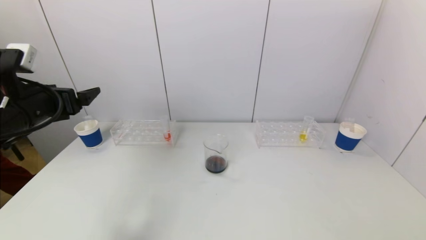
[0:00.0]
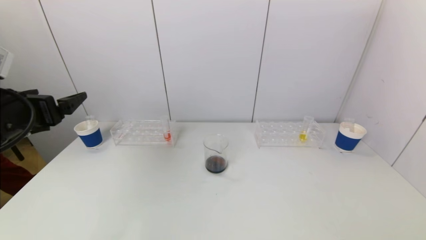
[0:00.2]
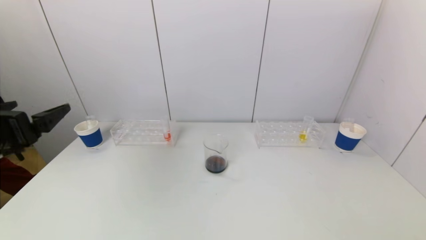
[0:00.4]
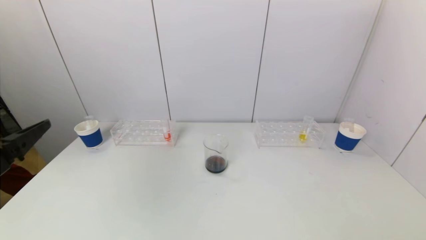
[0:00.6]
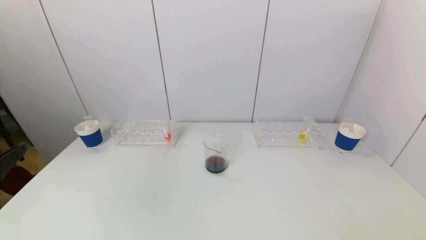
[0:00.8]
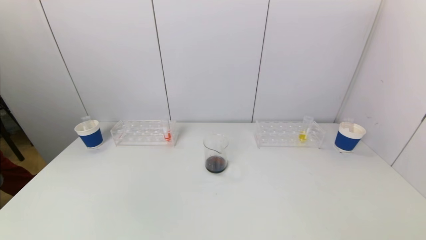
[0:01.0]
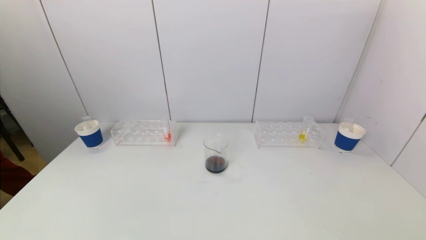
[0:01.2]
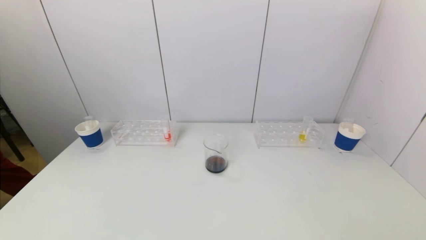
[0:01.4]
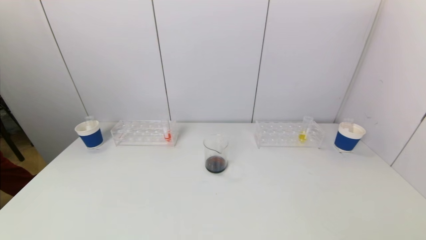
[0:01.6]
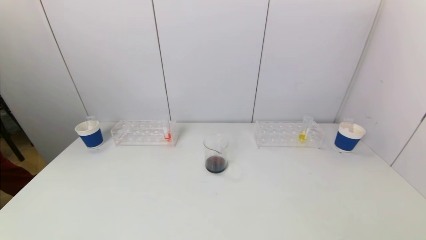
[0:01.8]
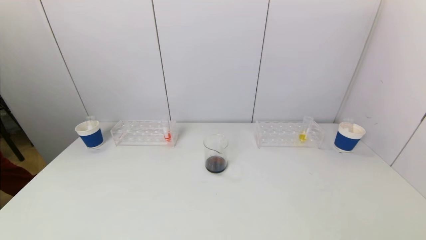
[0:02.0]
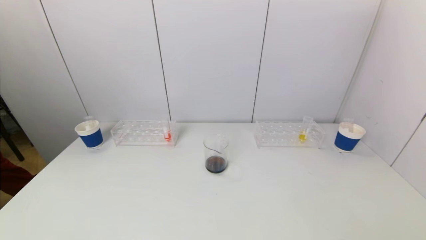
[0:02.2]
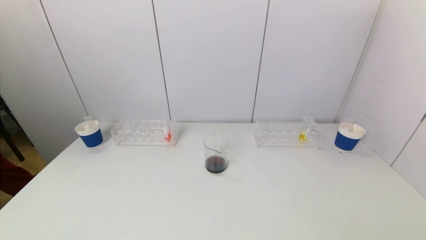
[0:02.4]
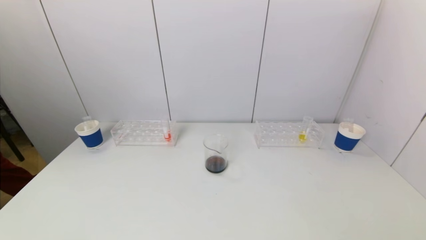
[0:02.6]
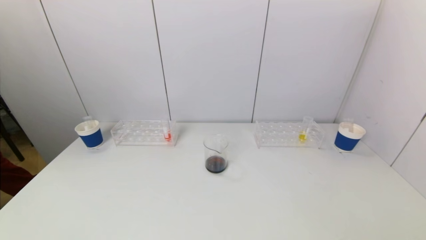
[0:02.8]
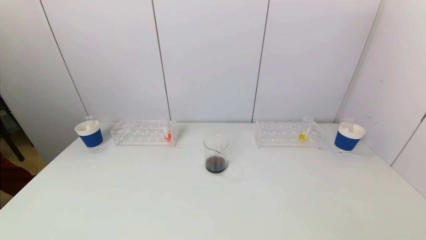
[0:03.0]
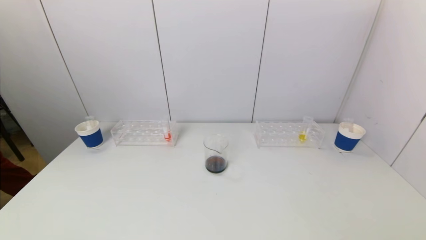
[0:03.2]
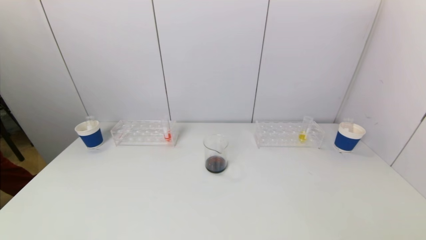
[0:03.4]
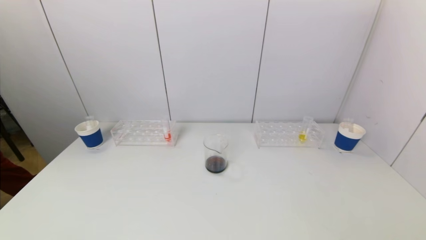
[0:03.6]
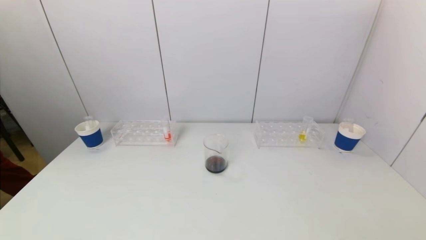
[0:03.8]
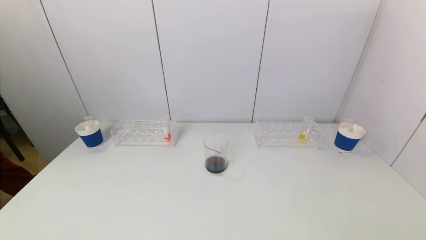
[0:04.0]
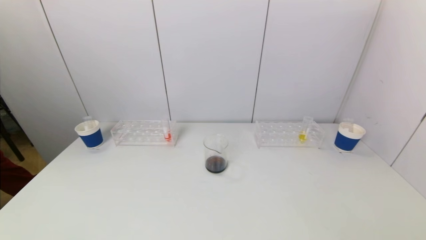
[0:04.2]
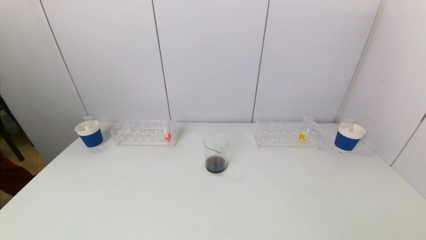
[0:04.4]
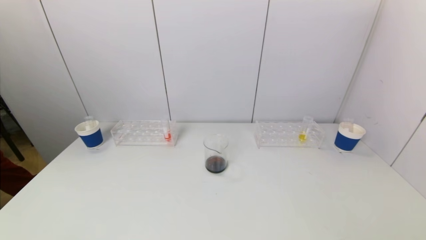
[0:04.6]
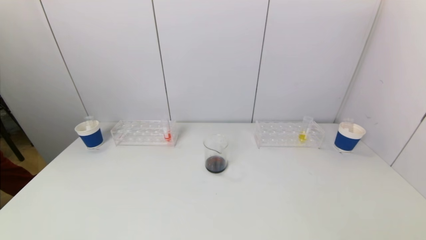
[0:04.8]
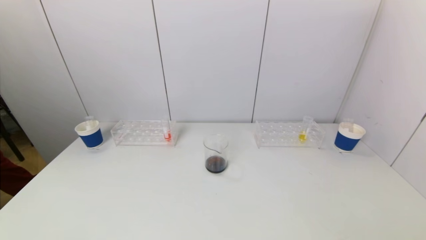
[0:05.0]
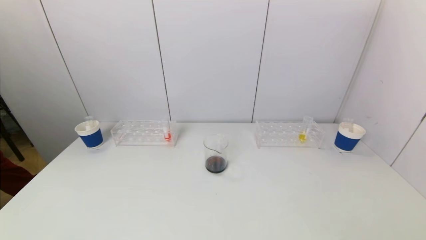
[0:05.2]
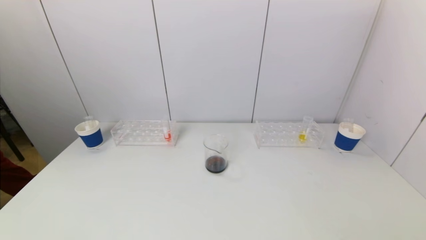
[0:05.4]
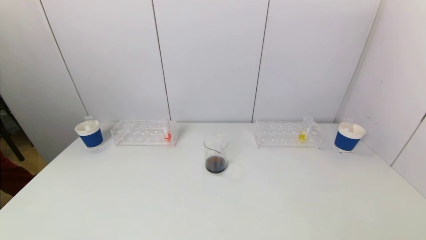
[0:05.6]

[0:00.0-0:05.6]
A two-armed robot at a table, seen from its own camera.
Task of the whole recording: pick up a test tube with pigment on left test tube rack and a test tube with pigment on right test tube rack by grippers and pour them into the beaker.
0:00.0 to 0:01.4: The left gripper heads backward, covering some 25 cm.
0:02.8 to 0:05.6: The two grippers keep their place.
